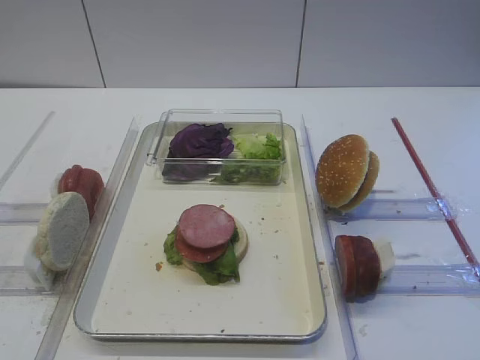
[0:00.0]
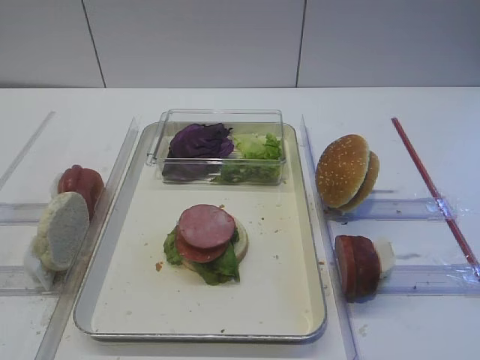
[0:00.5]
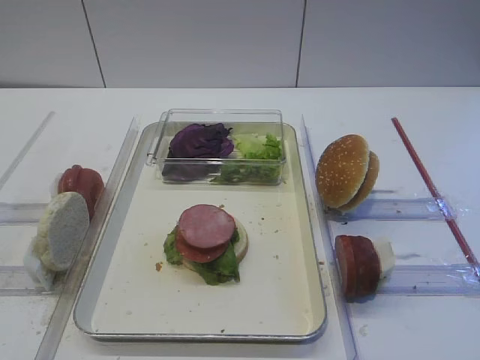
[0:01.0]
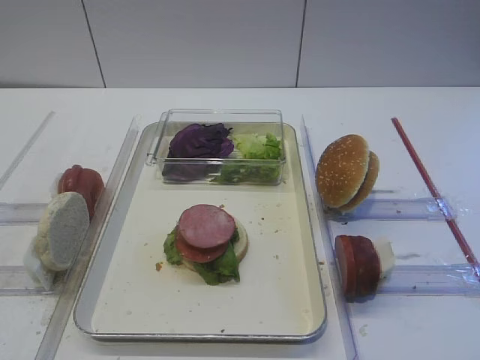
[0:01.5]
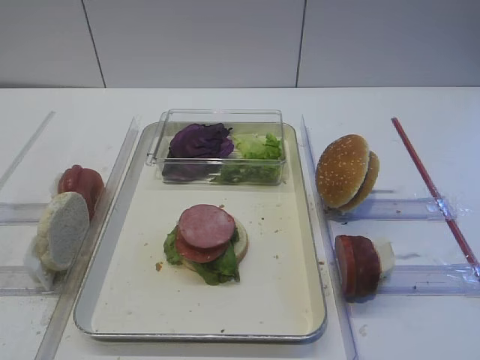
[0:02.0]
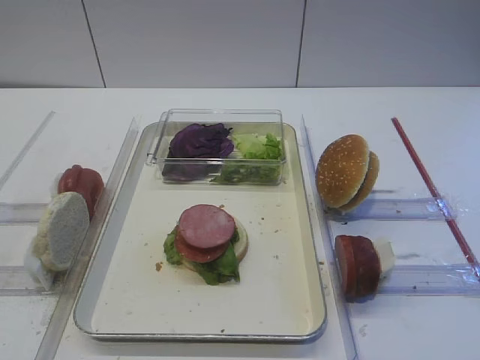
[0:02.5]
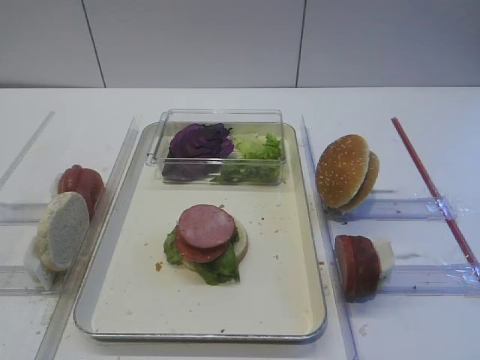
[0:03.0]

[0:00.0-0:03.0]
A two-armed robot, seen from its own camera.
0:00.0 to 0:03.0: Neither gripper changes place.

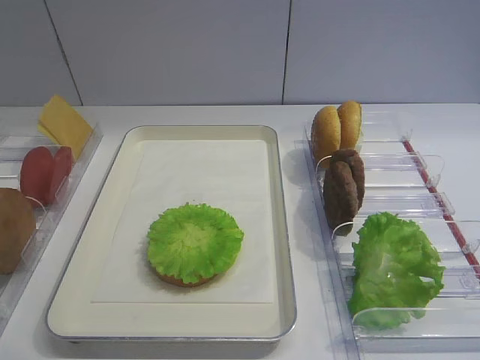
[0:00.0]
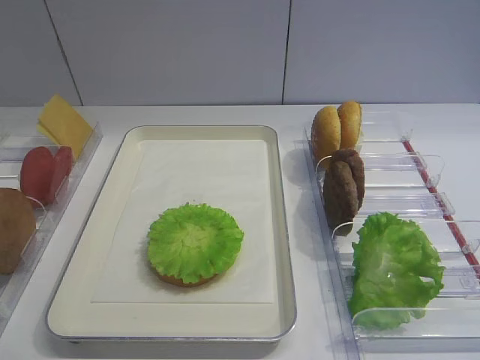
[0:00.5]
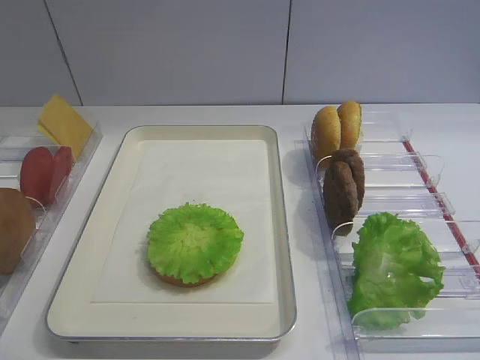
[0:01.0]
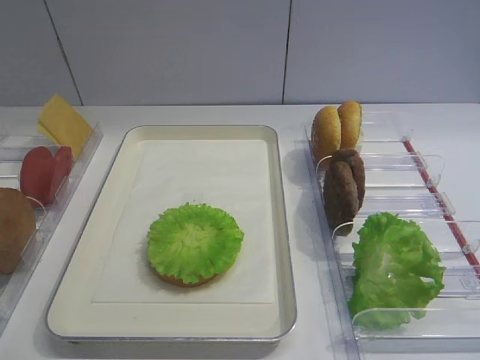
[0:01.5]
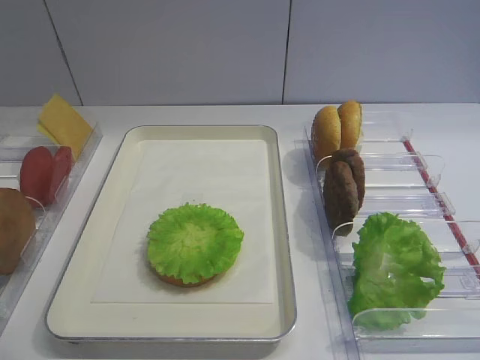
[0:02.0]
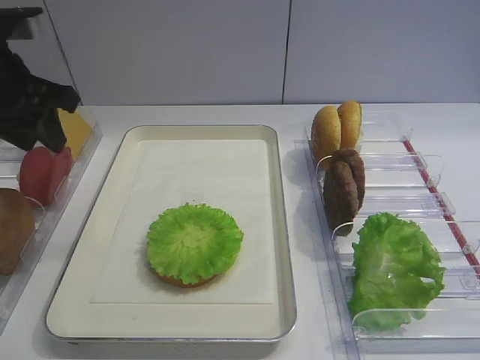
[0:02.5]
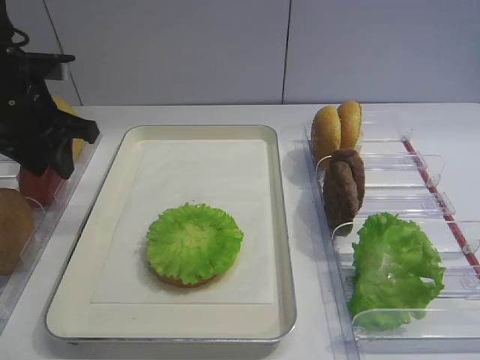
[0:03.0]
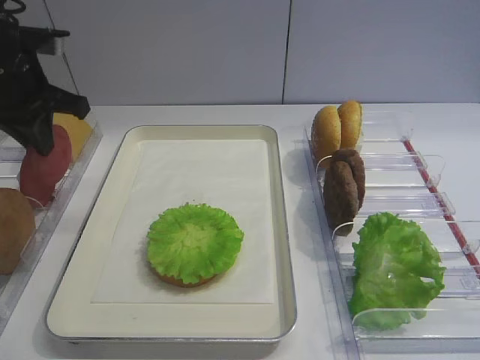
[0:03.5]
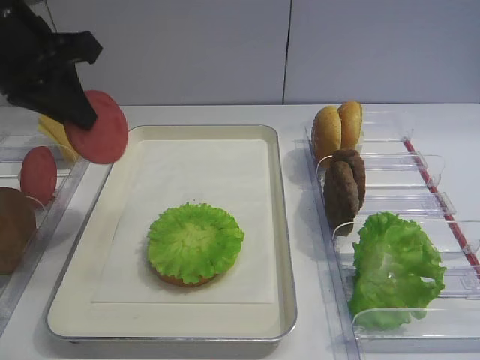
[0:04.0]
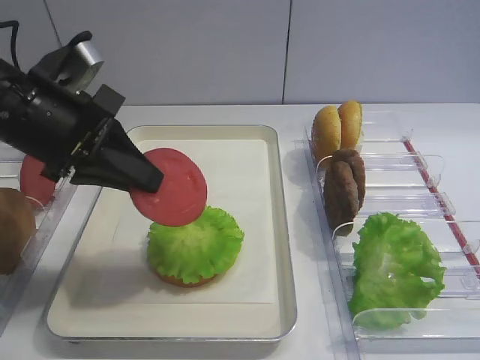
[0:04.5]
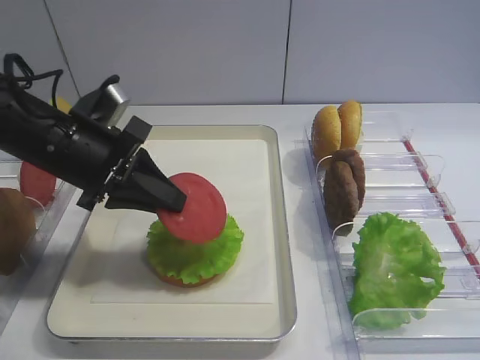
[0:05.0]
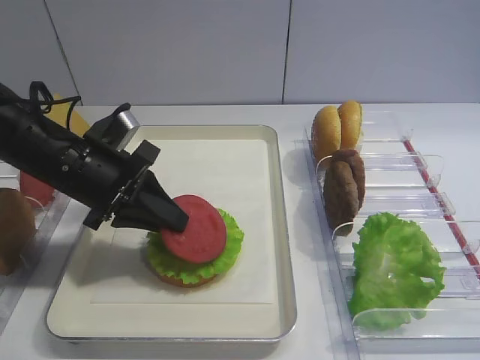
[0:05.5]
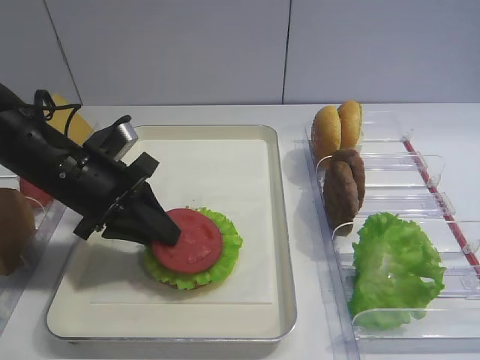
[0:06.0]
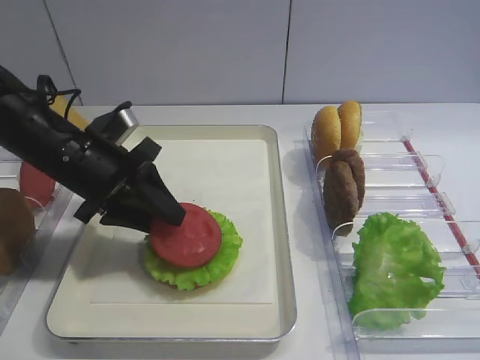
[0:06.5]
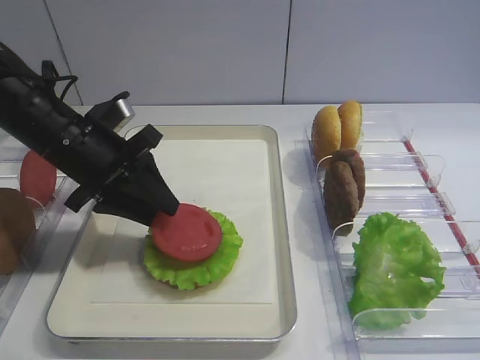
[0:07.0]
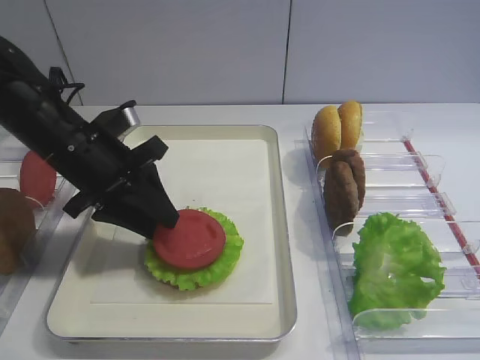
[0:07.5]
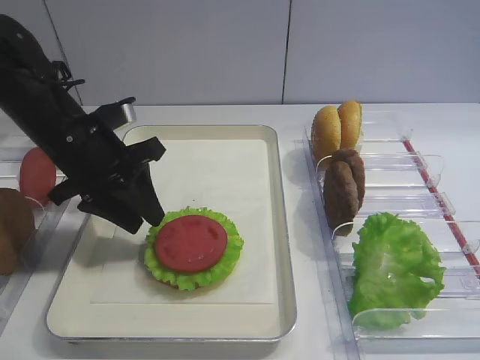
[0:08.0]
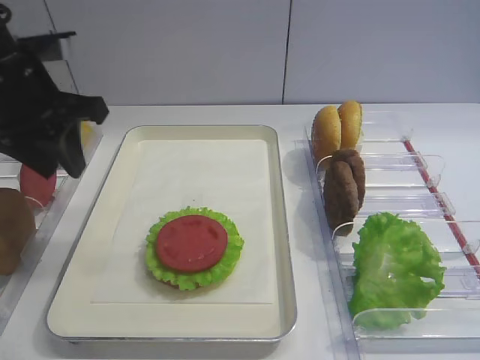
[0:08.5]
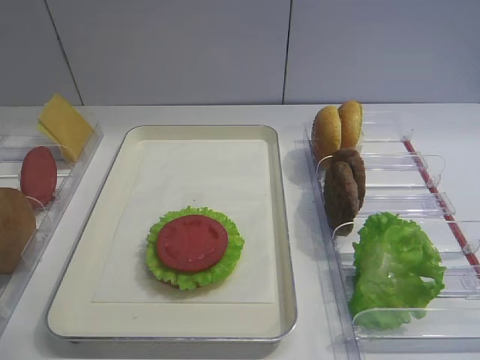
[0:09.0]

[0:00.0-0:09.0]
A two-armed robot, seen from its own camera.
Step, 0:00.0 to 0:03.5: Pick up the tomato slice with the left gripper.
Step, 0:04.0 to 0:07.5: Place the tomato slice on the lettuce leaf with the left gripper.
0:02.0 to 0:04.5: The left gripper moves forward, to the right and downward, approximately 15 cm, and closes.
0:04.5 to 0:07.0: The left gripper travels downward and forward by approximately 10 cm, and opens.
0:07.0 to 0:09.0: The left gripper is displaced upward and backward by approximately 25 cm.

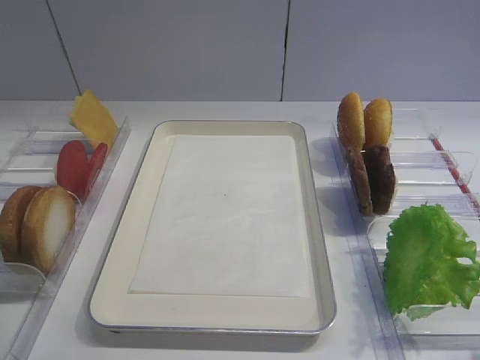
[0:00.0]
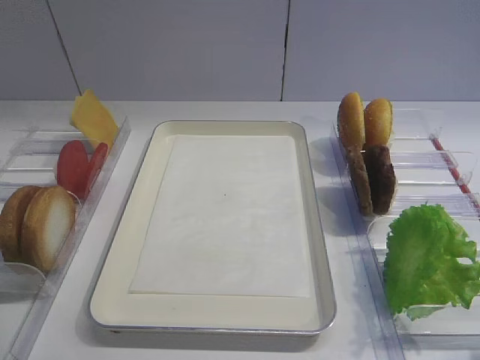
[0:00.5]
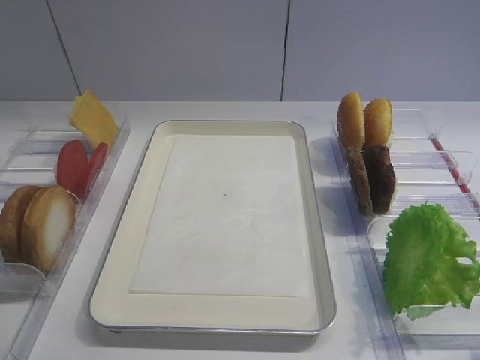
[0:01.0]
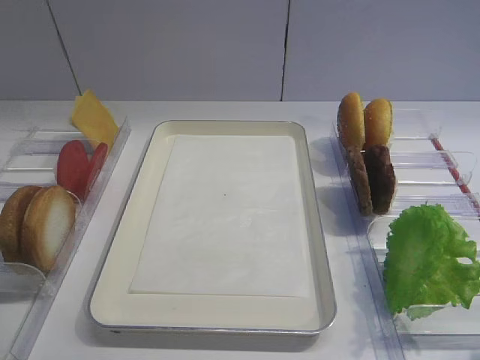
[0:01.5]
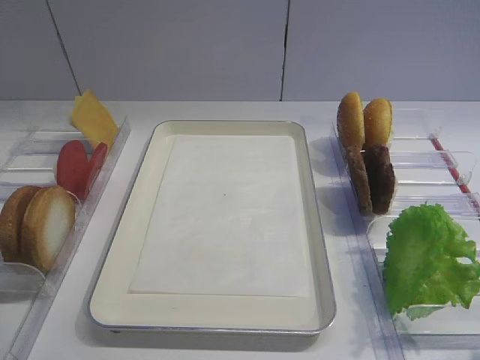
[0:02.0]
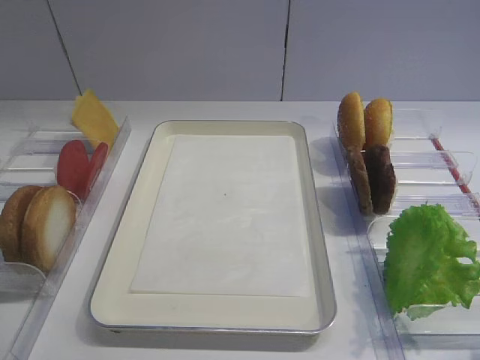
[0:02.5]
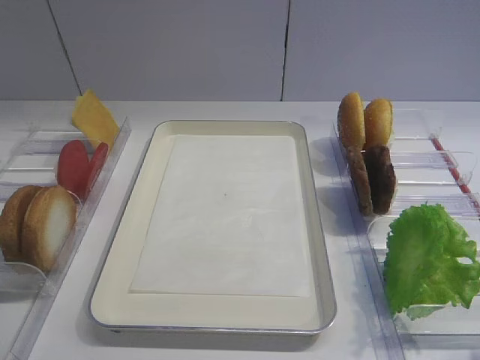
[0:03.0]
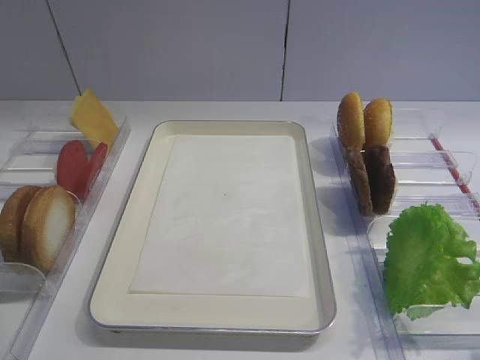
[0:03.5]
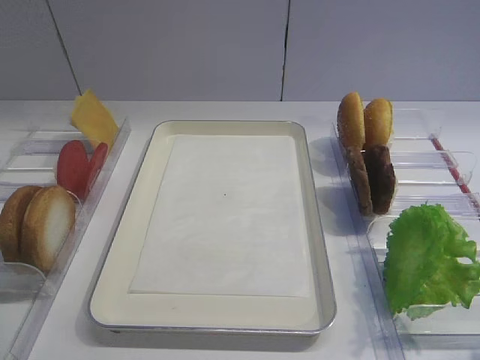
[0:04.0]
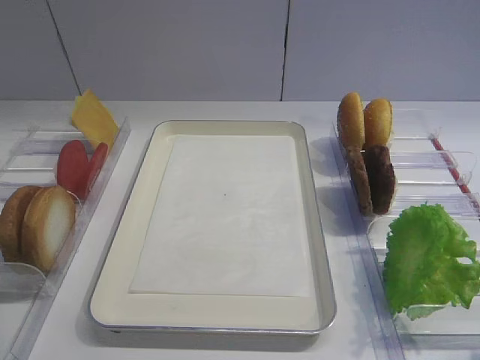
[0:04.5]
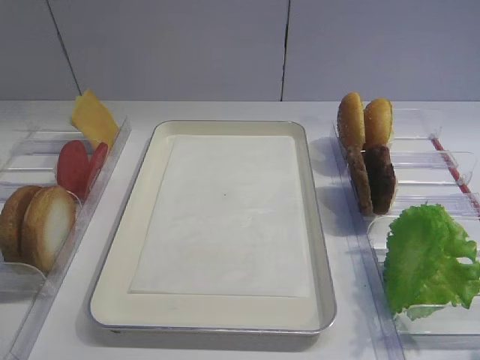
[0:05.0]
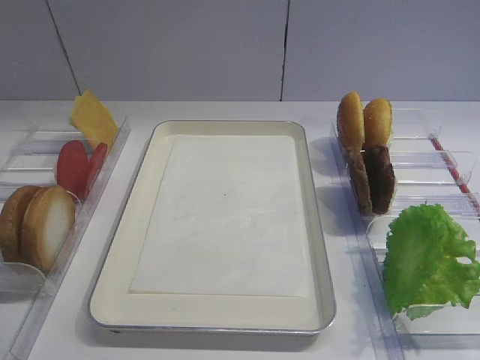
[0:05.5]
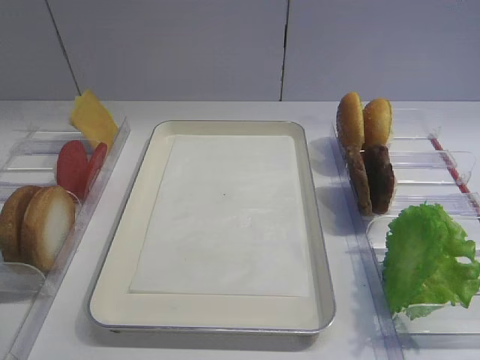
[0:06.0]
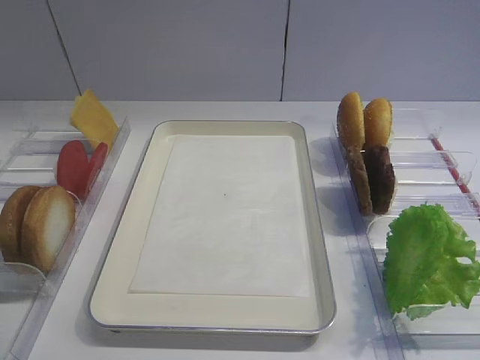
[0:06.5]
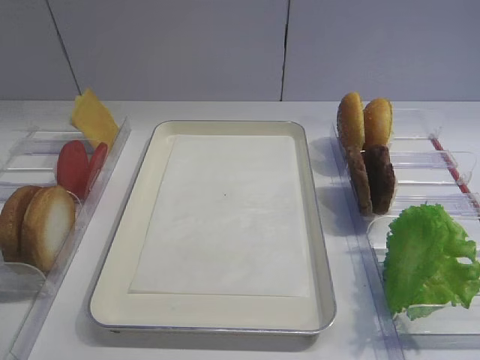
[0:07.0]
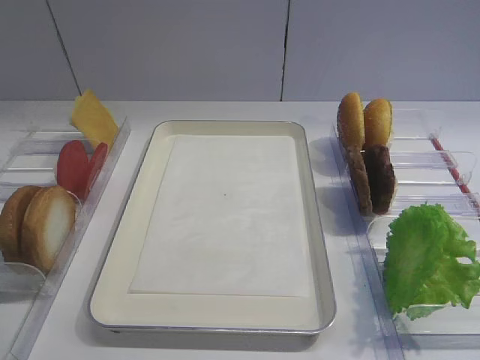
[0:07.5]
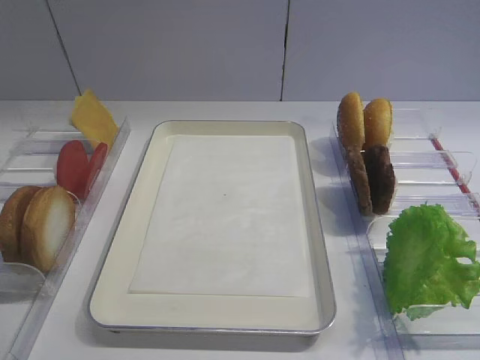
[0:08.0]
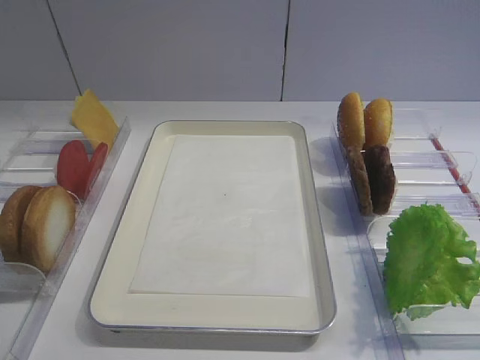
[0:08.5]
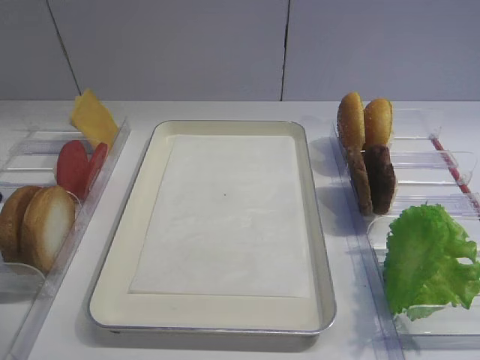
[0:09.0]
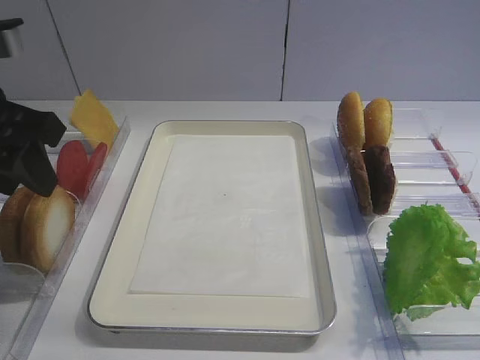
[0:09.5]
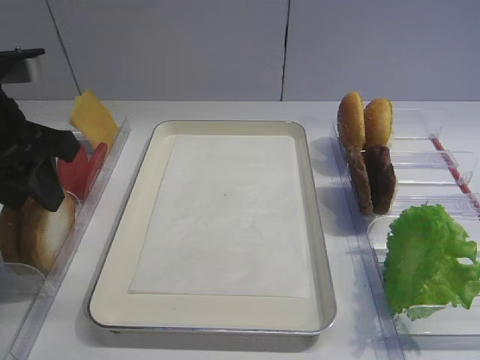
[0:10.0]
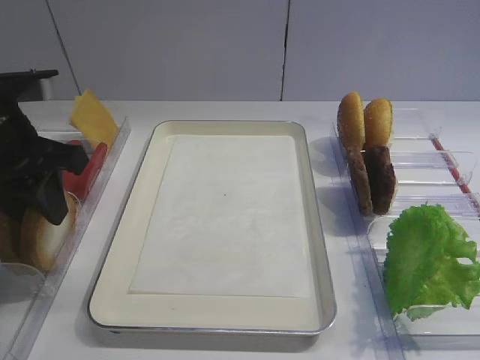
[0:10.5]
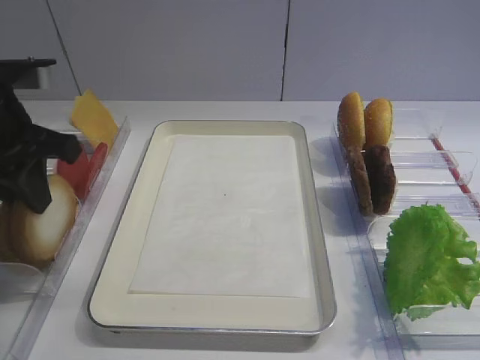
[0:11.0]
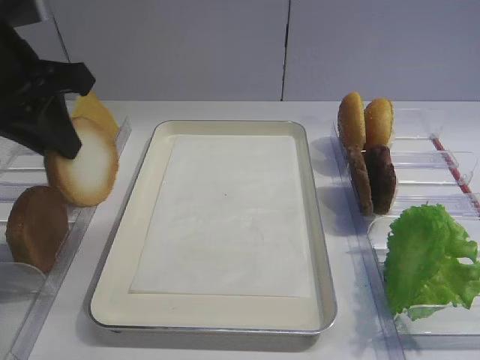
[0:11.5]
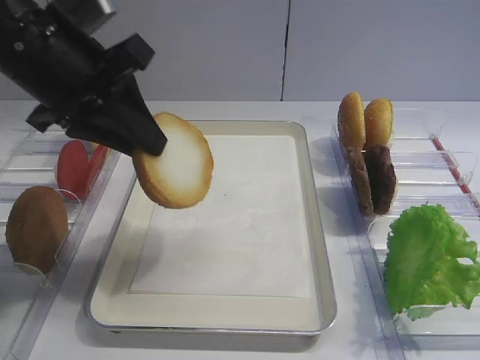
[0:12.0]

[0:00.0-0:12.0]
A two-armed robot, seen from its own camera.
Step, 0:00.0 to 0:11.0: Pick up the bread slice with the left gripper.
0:08.0 to 0:10.0: The left gripper is displaced forward by roughly 25 cm.
0:10.0 to 0:12.0: The left gripper moves to the right, roughly 5 cm, and closes.

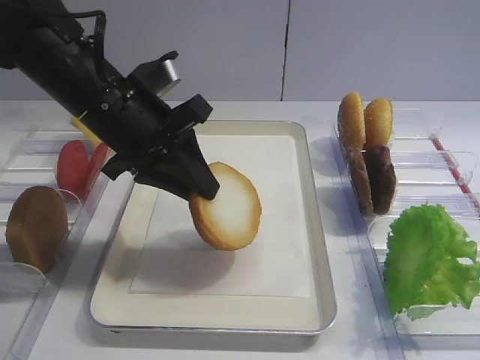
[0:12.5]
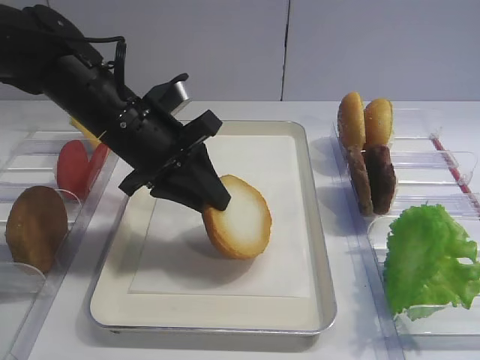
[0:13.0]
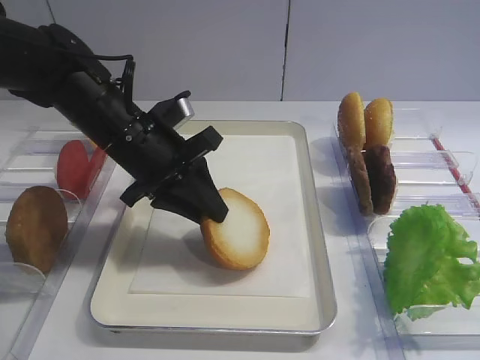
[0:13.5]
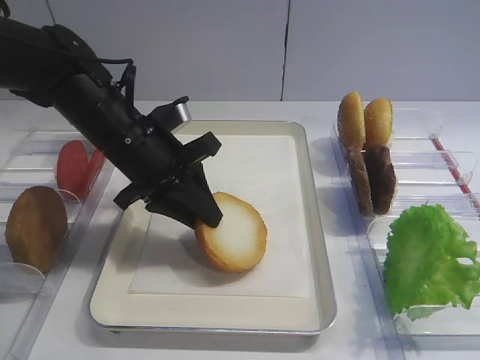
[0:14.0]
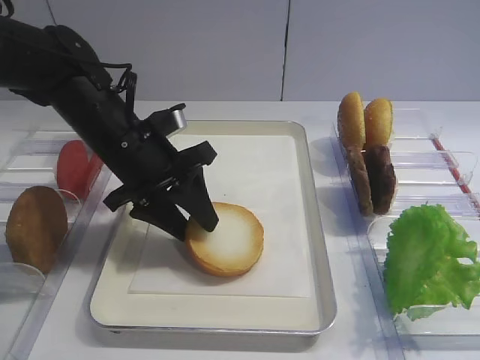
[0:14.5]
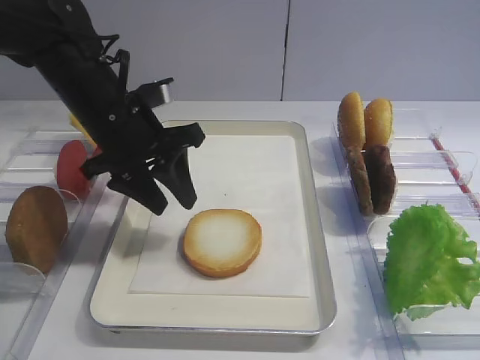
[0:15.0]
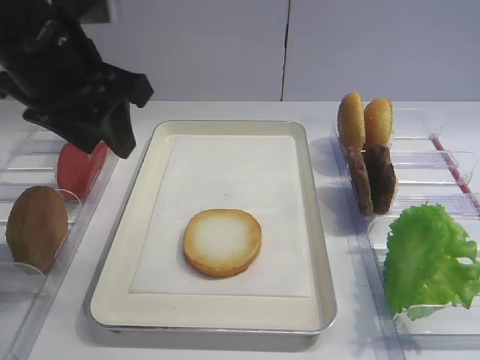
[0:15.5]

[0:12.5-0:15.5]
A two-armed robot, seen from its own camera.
Step, 0:12.5 to 0:15.0: Place the bread slice on the tray with the left gripper.
0:12.5 to 0:14.0: The left gripper shifts some 5 cm downward.
0:14.0 to 0:15.5: The left gripper travels upward by approximately 10 cm, and opens its fingers.
